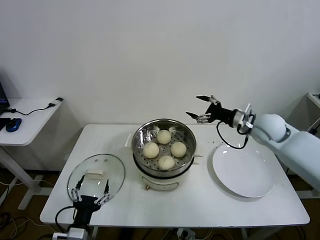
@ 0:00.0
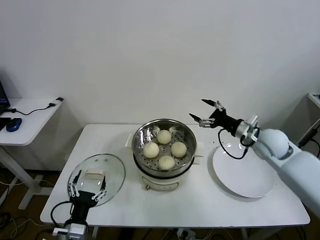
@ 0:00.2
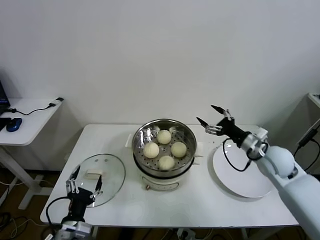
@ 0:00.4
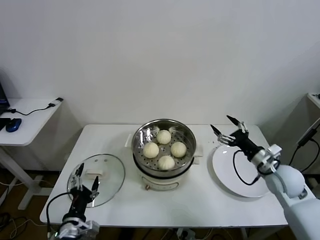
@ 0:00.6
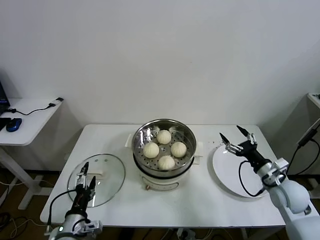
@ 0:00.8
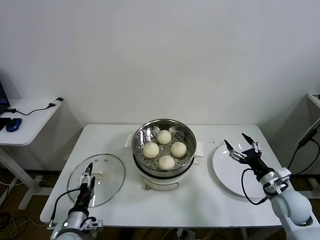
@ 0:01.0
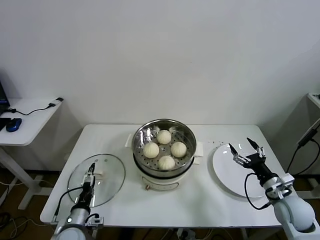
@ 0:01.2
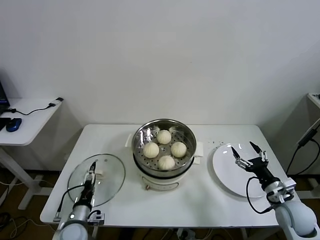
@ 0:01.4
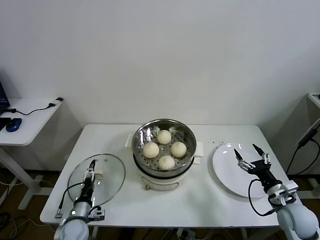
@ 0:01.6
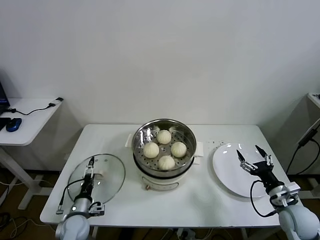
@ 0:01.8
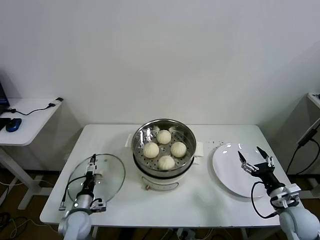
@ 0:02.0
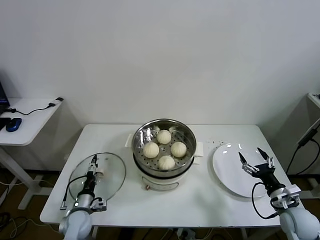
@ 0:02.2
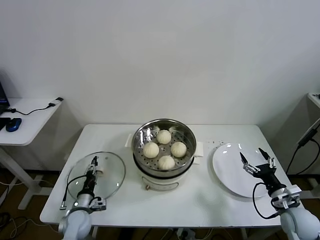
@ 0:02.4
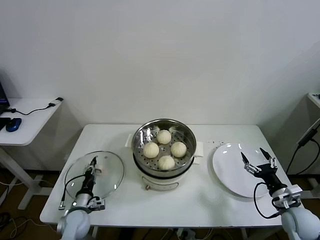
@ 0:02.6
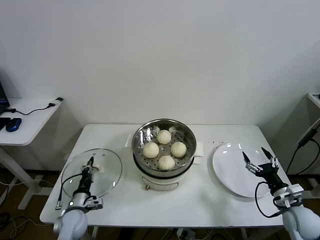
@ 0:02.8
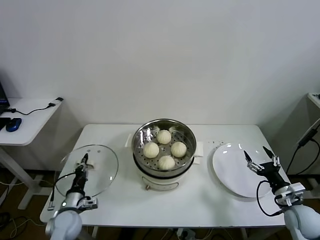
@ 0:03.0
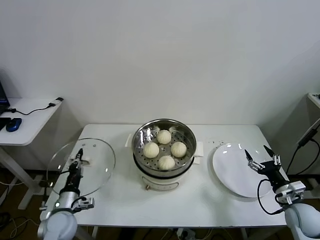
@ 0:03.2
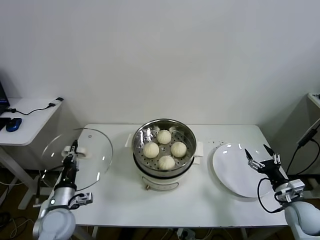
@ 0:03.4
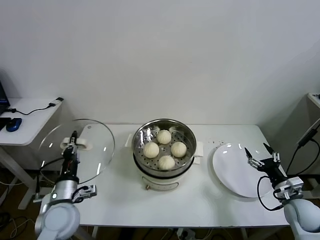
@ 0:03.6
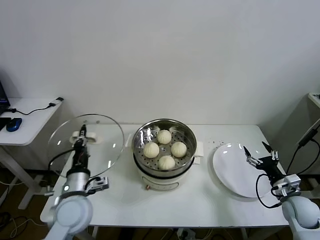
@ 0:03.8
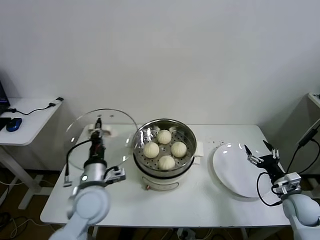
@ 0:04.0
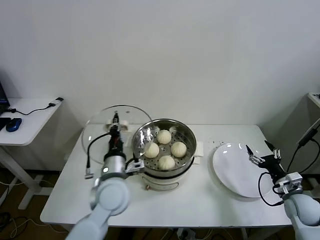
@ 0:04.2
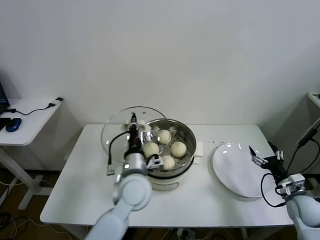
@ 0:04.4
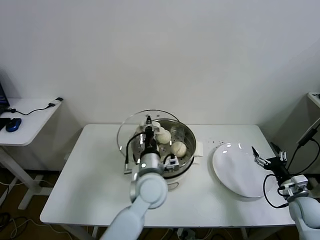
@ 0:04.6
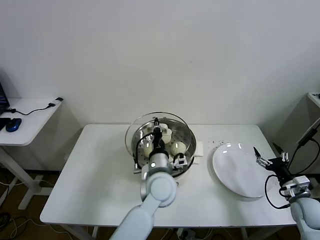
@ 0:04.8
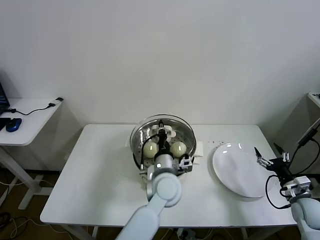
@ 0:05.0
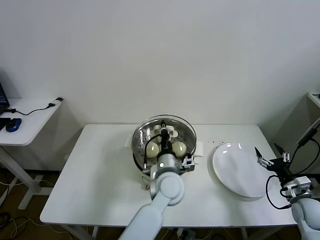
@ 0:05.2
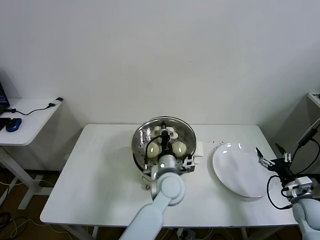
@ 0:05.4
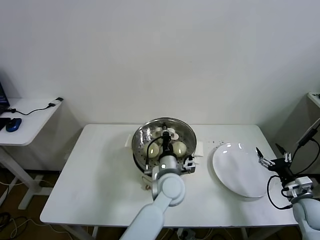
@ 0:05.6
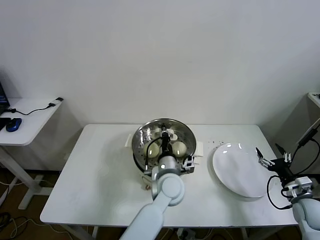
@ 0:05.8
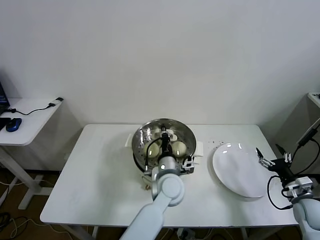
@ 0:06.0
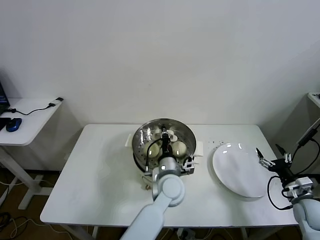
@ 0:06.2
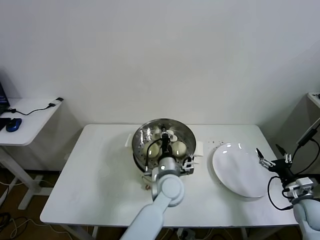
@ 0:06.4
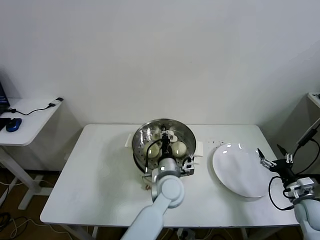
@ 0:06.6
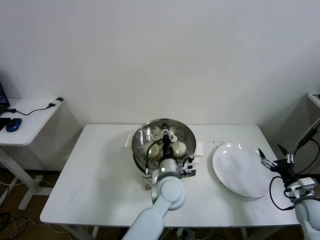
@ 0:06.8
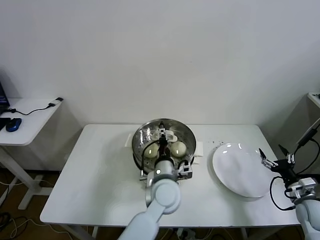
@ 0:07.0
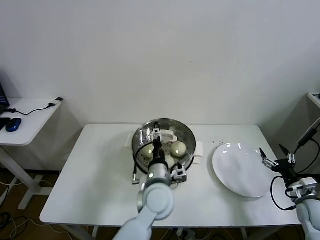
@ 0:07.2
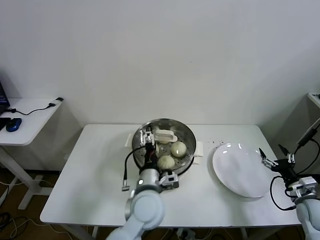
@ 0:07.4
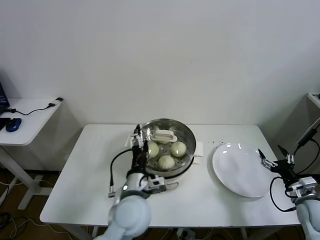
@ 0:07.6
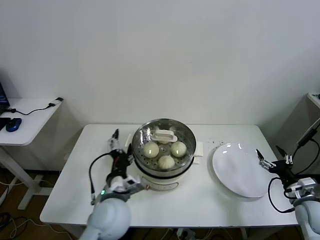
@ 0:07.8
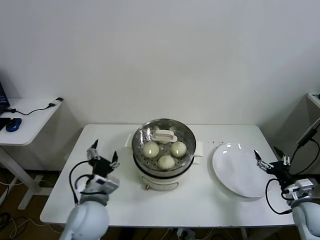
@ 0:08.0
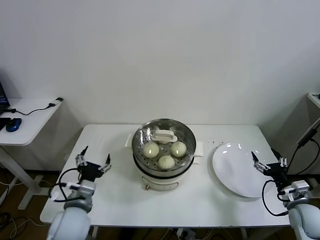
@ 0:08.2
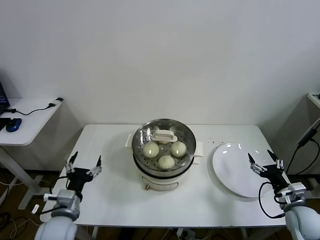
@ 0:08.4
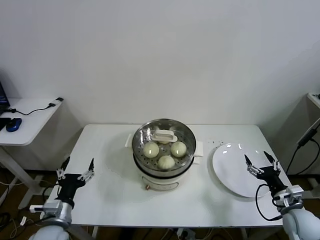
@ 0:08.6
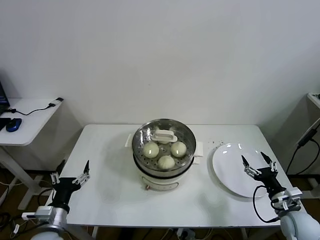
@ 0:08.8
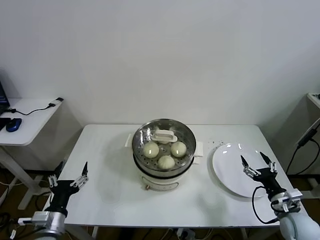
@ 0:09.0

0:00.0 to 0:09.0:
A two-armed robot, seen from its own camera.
Task of the whole recording: take steamed baozi put them in steamer.
Step, 0:00.0 to 0:02.8: Grasp the pot lid with left gripper.
Step, 0:03.0 to 0:06.8: Place the pot lid on the steamer with left gripper.
0:00.0 to 0:01.6: The right gripper travels backward and downward by approximately 30 cm; the left gripper heads forward, downward and to the left, covering roughly 15 cm.
0:01.6 to 0:03.0: The left gripper closes up.
0:03.0 to 0:04.4: The left gripper goes about 30 cm to the right and upward.
0:04.4 to 0:06.0: The left gripper heads to the right and downward, covering some 15 cm.
0:06.0 to 0:07.6: The left gripper is displaced to the left and backward by roughly 10 cm, and opens up.
0:07.6 to 0:09.0: The right gripper travels to the left by roughly 10 cm; the left gripper goes some 25 cm to the left.
